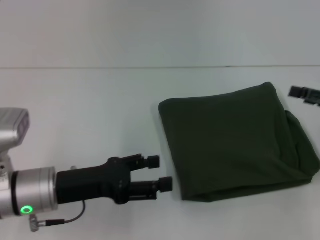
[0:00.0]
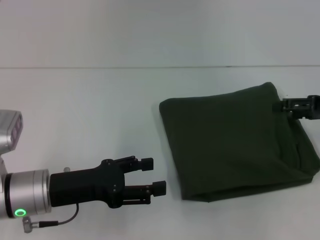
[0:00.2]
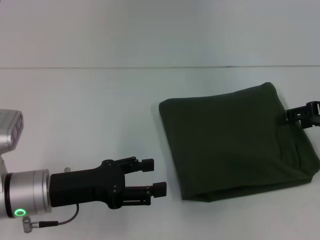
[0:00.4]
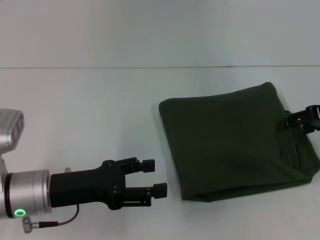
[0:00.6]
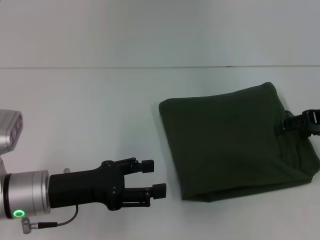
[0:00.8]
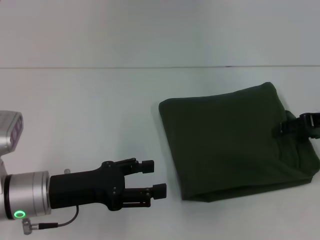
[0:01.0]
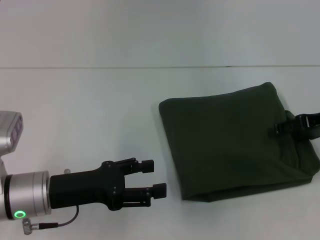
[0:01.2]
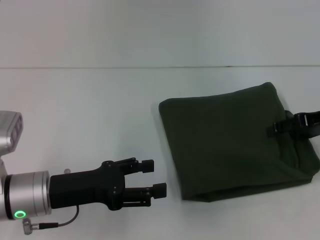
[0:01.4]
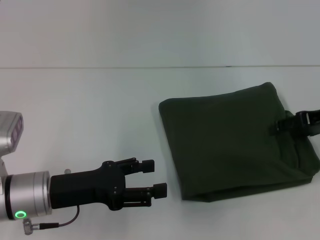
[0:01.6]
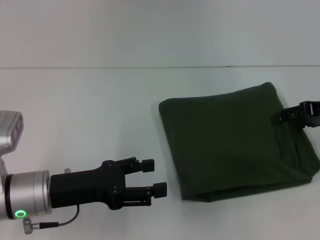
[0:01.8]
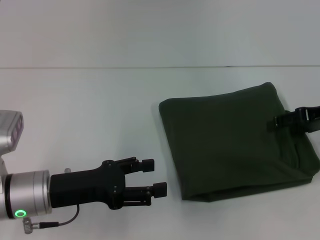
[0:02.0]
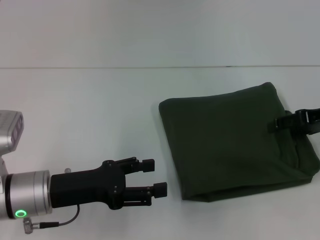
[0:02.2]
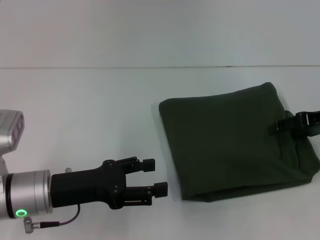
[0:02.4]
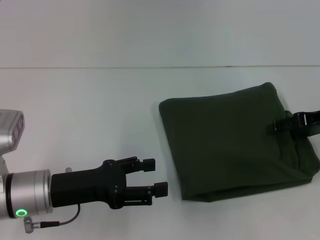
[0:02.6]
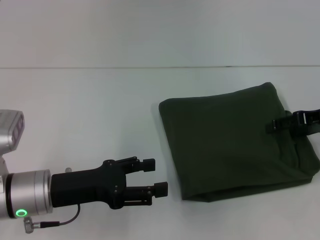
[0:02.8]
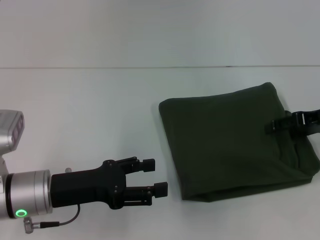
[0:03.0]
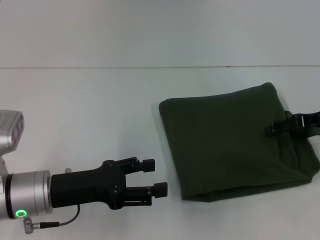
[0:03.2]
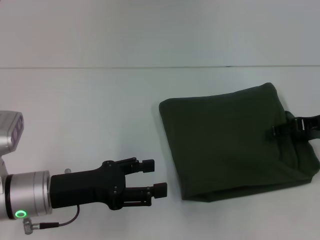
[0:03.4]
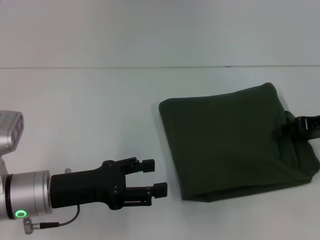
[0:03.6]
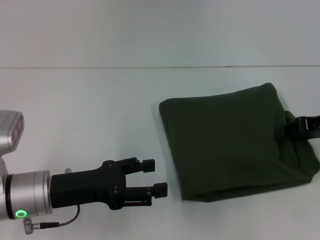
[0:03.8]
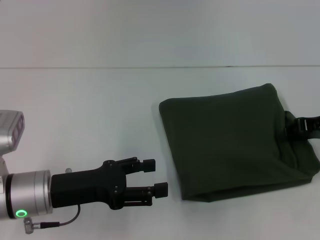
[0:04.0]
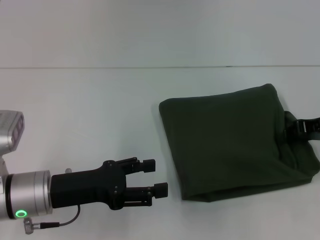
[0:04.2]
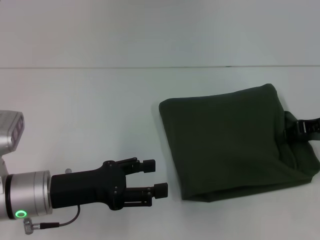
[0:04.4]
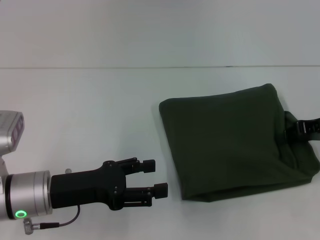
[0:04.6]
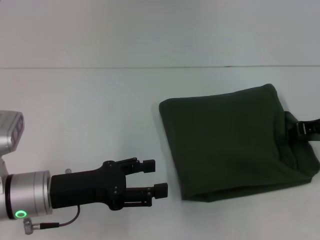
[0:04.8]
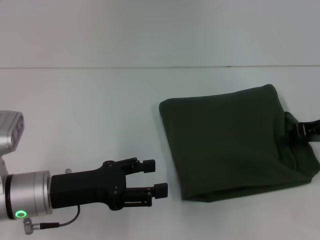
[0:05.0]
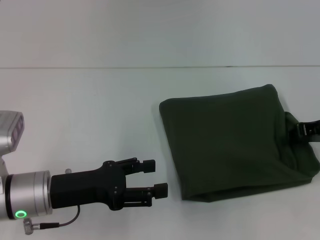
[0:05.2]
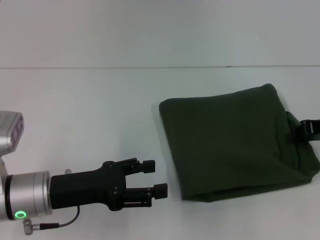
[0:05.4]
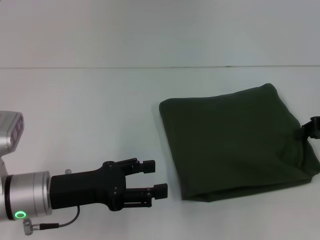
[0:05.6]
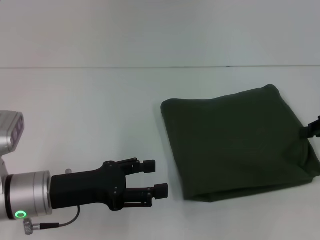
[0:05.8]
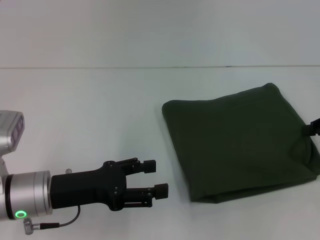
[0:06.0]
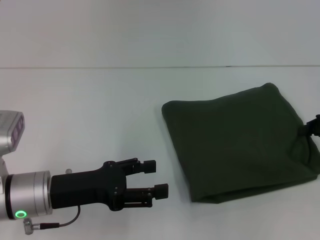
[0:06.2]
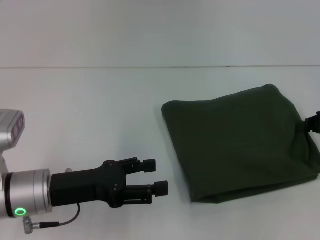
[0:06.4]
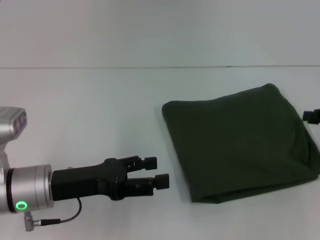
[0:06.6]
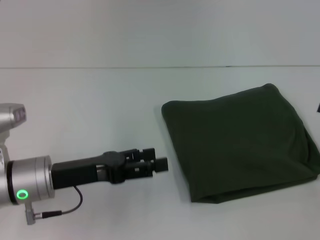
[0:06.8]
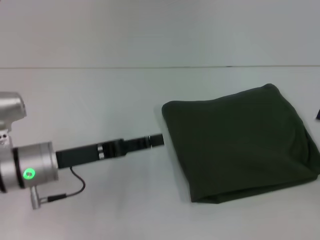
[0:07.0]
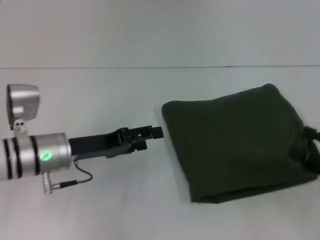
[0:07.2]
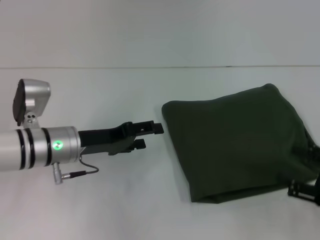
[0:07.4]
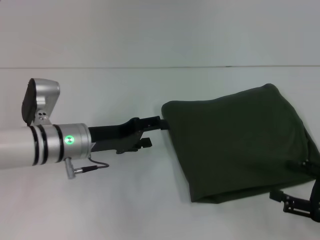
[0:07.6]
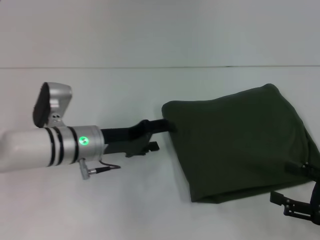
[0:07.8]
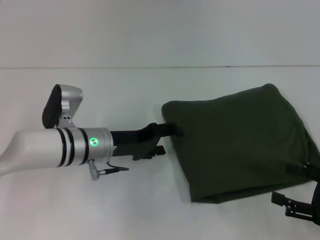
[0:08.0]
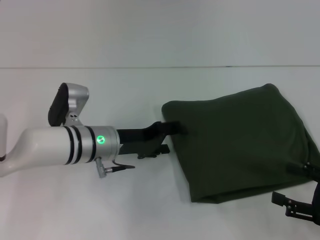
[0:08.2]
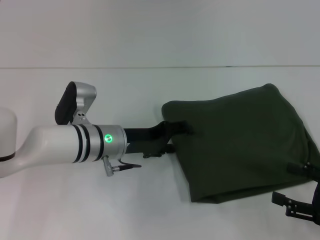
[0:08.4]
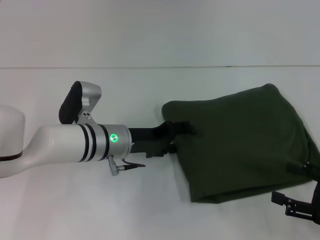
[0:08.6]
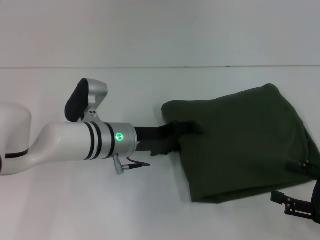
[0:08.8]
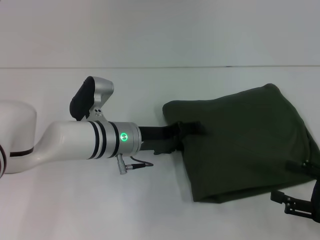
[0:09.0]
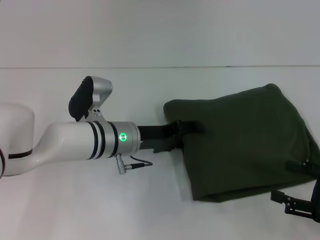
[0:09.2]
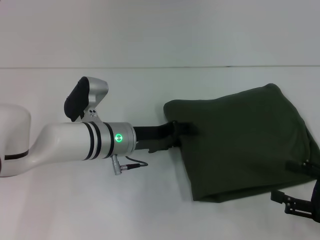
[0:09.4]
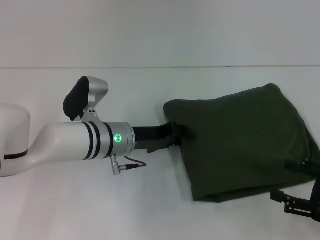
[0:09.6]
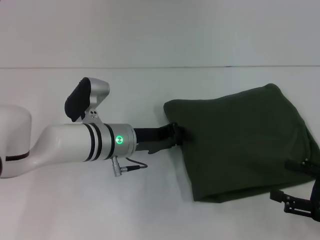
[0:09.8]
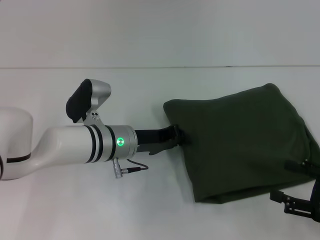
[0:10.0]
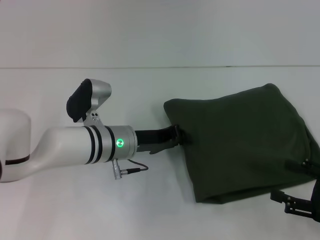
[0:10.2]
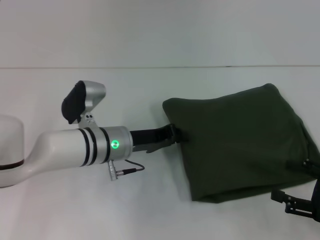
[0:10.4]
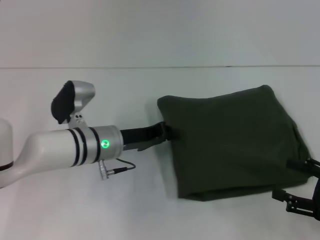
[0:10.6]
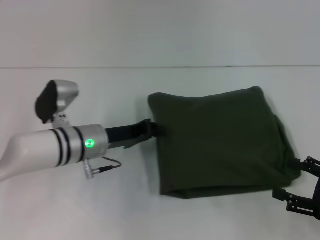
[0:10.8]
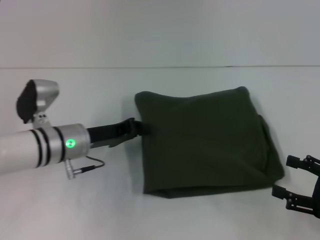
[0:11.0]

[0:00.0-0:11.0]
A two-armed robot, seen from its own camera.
0:00.0 to 0:01.6: The right gripper moves approximately 5 cm.
0:01.6 to 0:03.2: There are only small adjustments of the grippers.
0:03.2 to 0:04.8: The right gripper closes up.
0:04.8 to 0:06.2: The grippers make only small movements.
0:06.2 to 0:07.8: The right gripper is displaced backward and downward by roughly 15 cm, and opens up, while the left gripper goes roughly 10 cm forward and to the right.
0:07.8 to 0:09.4: The left gripper changes place by some 5 cm.
0:09.4 to 0:11.0: The left gripper is displaced to the left by some 5 cm, and closes.

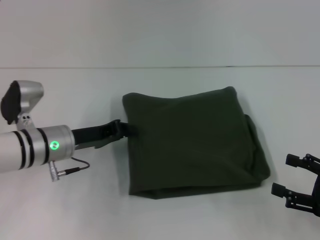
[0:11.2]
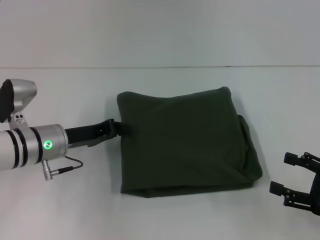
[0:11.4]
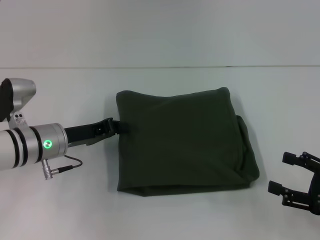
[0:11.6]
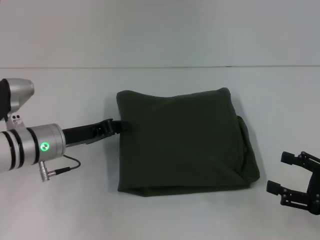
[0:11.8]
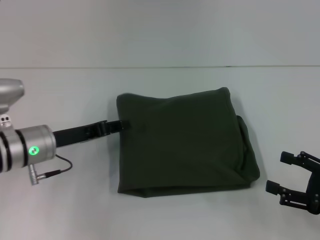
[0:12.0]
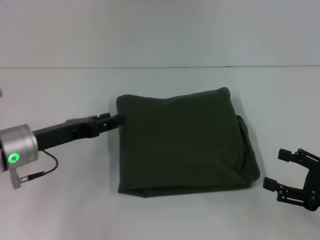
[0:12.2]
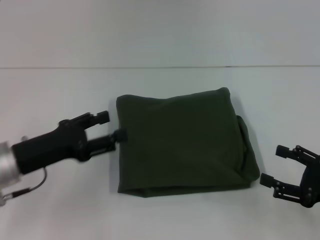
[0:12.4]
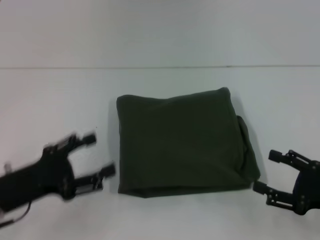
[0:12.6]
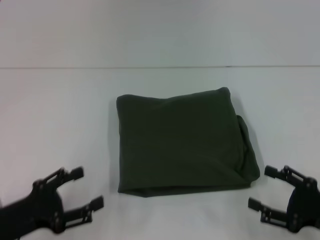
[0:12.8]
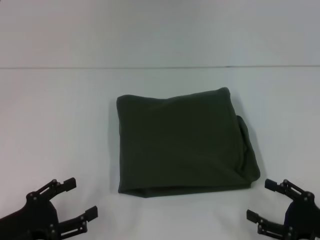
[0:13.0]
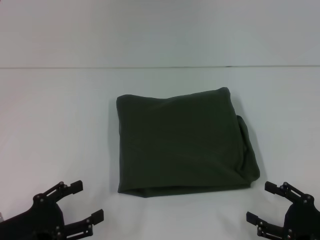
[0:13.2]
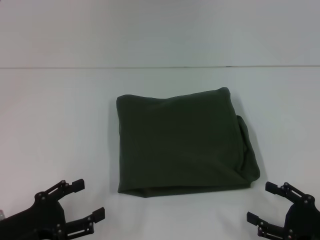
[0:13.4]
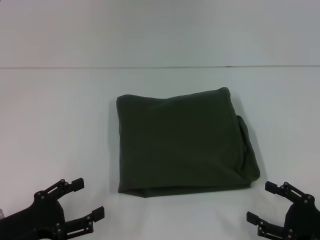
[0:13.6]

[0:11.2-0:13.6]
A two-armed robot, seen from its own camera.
0:11.2 to 0:12.4: The left gripper shifts about 5 cm backward, and opens up.
0:12.4 to 0:13.6: The left gripper moves backward and downward, roughly 10 cm. The right gripper heads downward, covering some 5 cm.

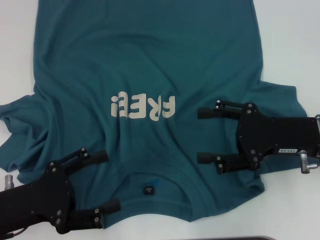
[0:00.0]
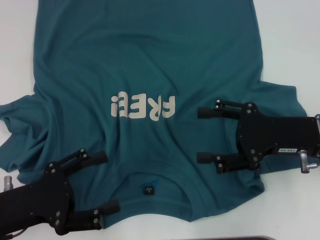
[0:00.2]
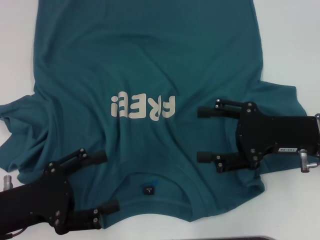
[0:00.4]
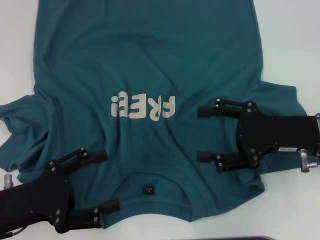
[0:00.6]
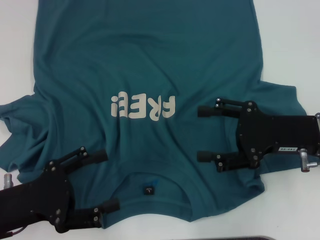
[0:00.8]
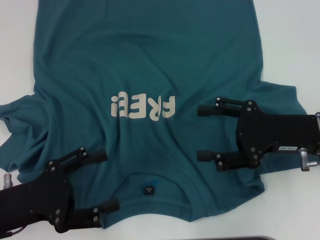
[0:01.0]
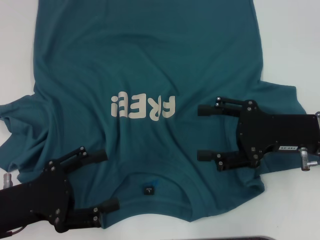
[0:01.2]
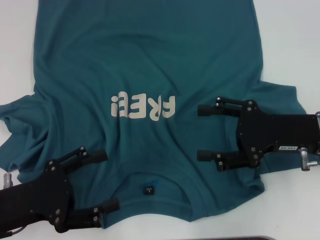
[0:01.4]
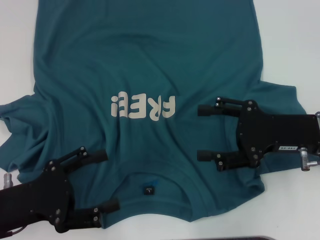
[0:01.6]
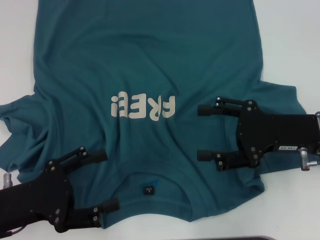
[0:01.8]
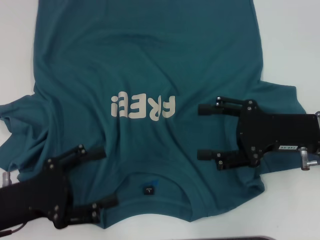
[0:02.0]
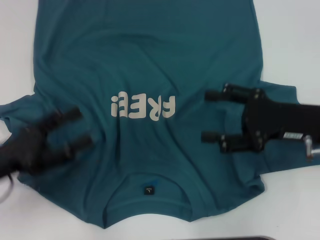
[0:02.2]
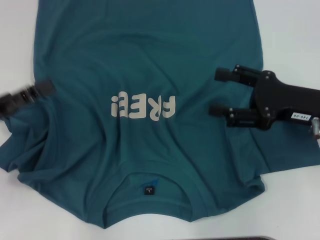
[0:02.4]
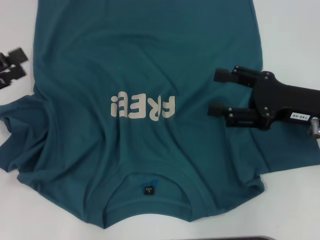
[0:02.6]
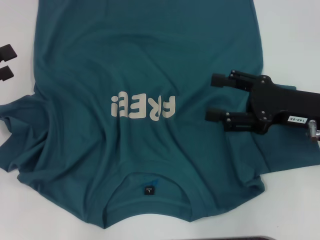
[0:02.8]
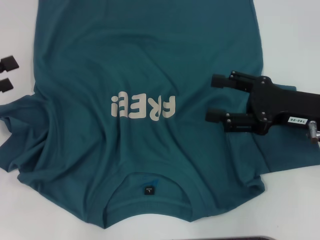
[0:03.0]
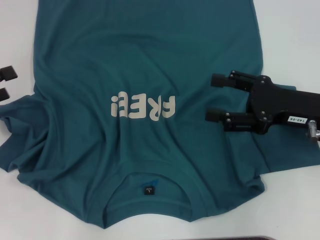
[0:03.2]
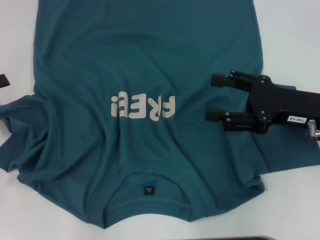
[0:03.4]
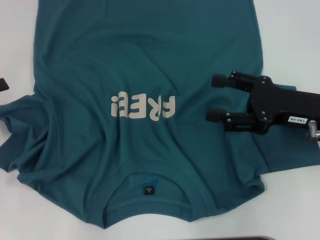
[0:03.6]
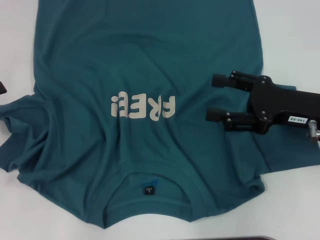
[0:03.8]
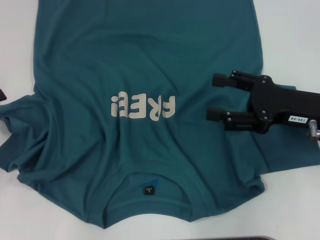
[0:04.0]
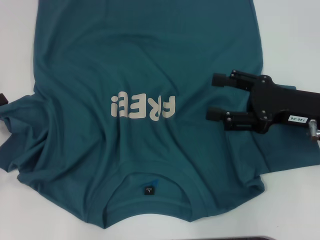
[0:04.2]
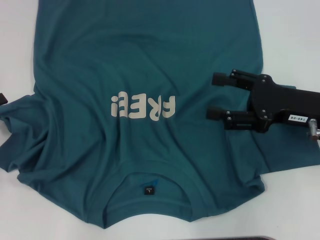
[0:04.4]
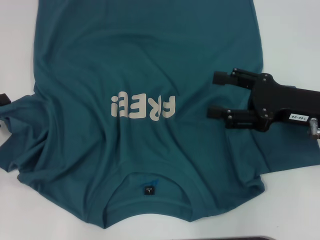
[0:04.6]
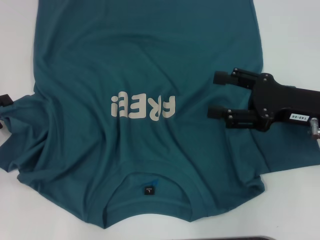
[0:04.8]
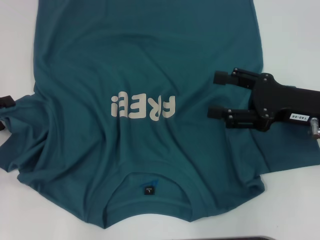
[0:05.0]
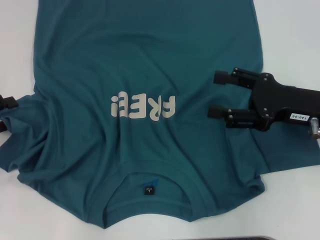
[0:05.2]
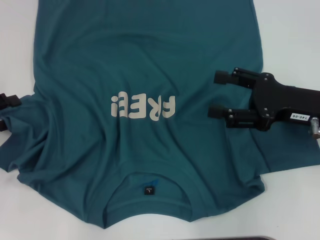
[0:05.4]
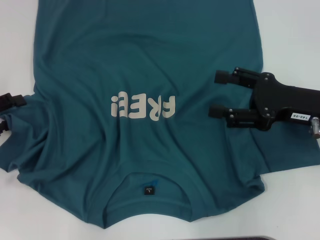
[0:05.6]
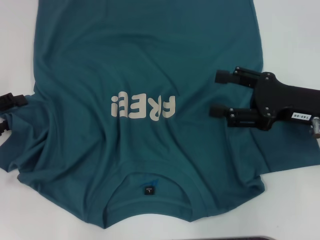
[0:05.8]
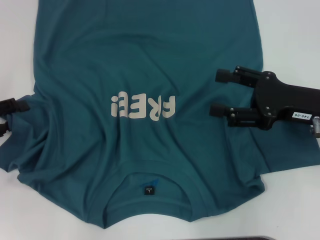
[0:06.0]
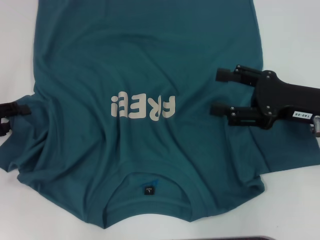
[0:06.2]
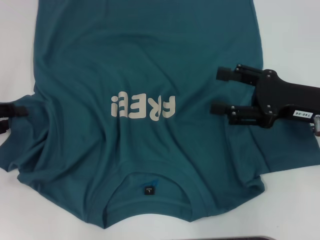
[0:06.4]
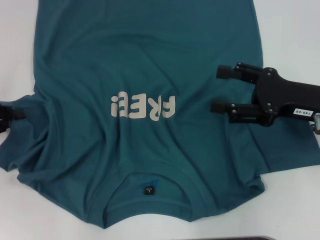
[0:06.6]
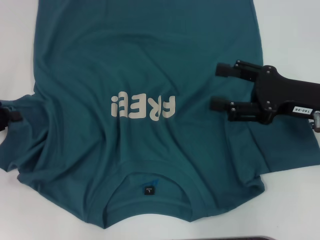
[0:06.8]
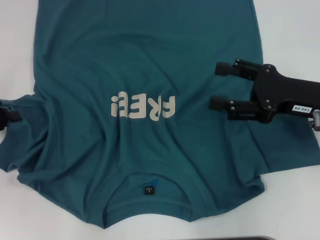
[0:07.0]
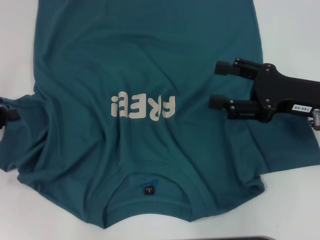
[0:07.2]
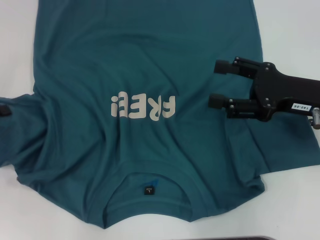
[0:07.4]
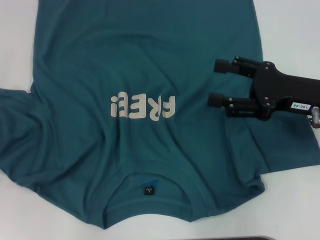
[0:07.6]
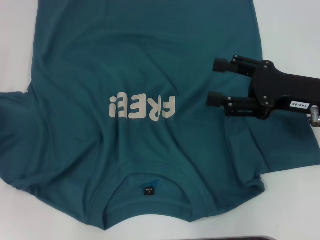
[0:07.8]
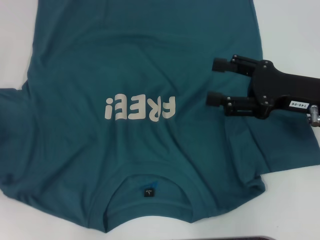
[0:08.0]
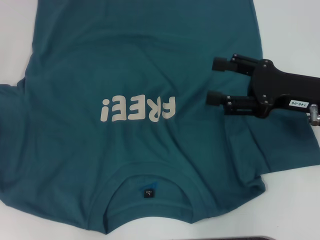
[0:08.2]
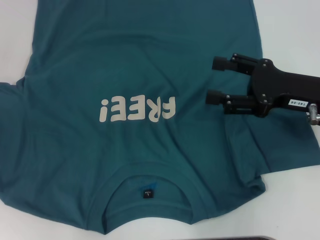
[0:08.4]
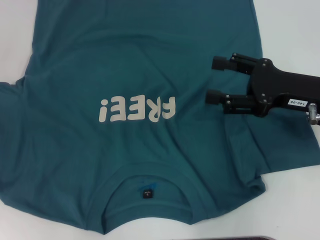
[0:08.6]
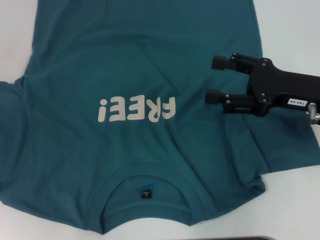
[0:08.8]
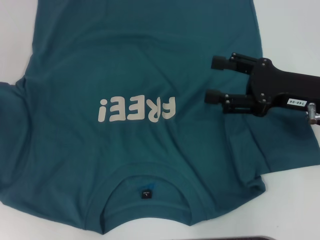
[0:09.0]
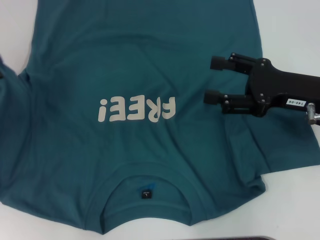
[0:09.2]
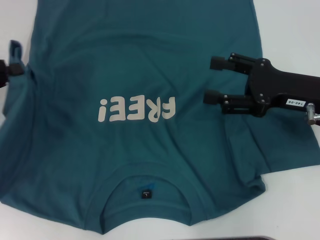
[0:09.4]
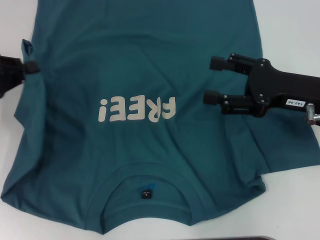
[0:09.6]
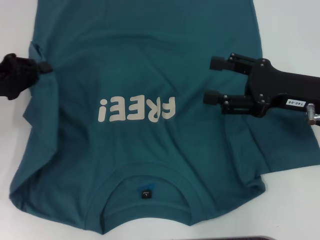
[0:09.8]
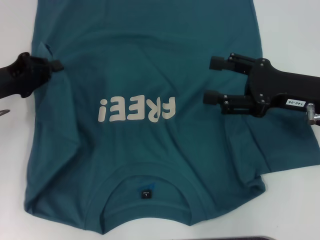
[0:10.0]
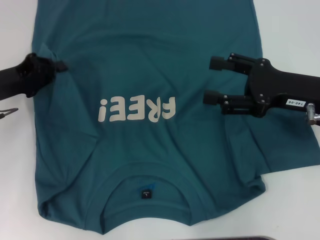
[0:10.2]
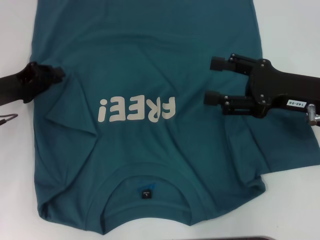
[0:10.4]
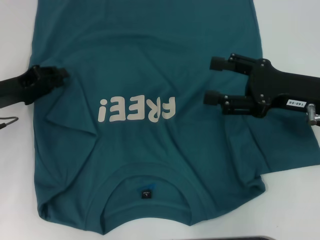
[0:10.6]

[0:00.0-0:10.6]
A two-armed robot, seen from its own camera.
0:00.0 to 0:01.6: Neither gripper changes place.
0:01.6 to 0:03.0: The left gripper goes roughly 15 cm to the left, forward and upward.
0:03.0 to 0:06.0: There are only small adjustments of the grippers.
0:06.0 to 0:07.6: The left gripper closes up.
0:07.6 to 0:09.0: The grippers make only small movements.
0:09.0 to 0:10.6: The left gripper is displaced to the right and downward by roughly 15 cm.
